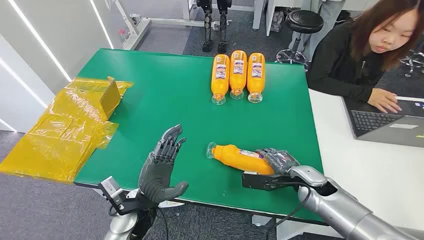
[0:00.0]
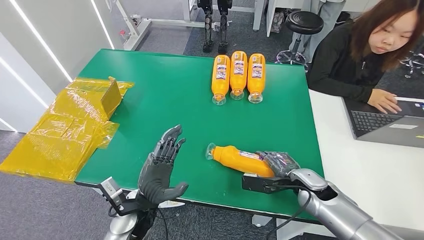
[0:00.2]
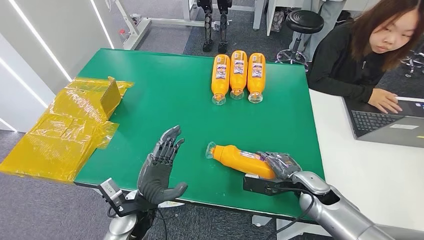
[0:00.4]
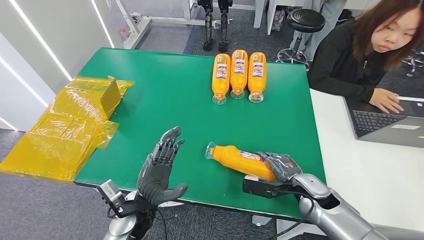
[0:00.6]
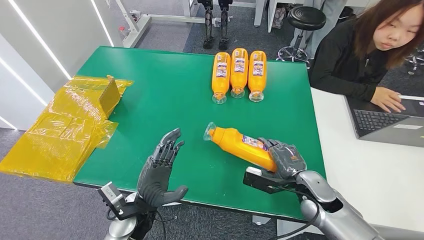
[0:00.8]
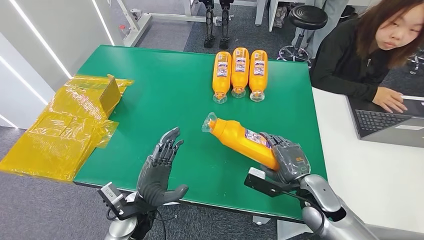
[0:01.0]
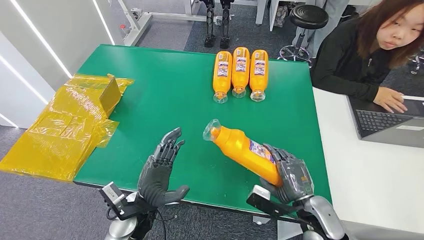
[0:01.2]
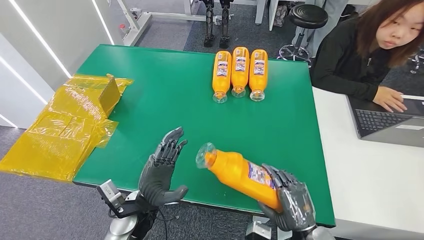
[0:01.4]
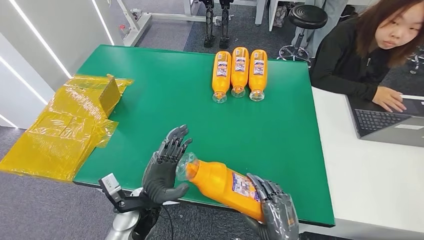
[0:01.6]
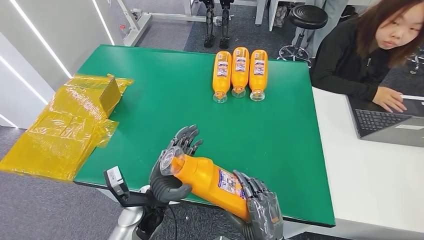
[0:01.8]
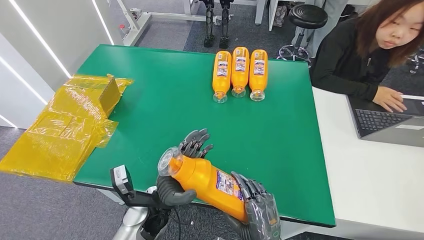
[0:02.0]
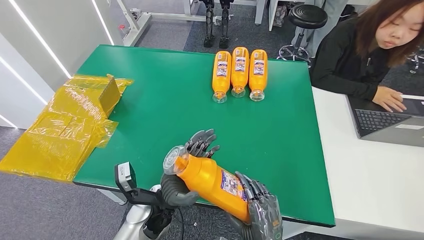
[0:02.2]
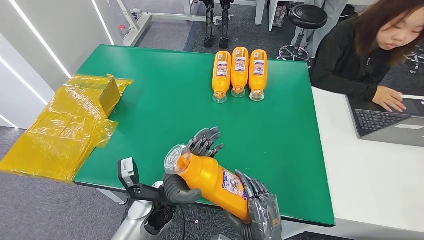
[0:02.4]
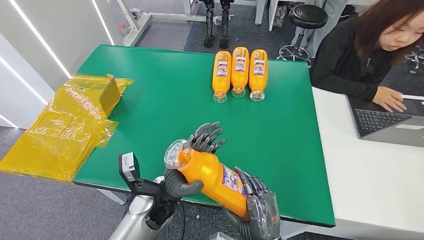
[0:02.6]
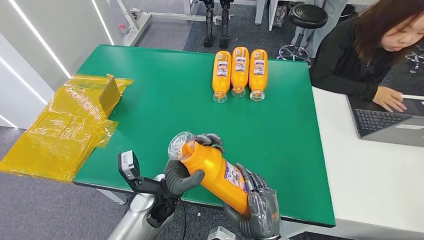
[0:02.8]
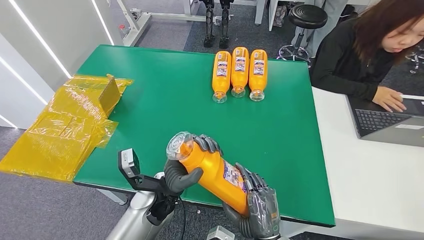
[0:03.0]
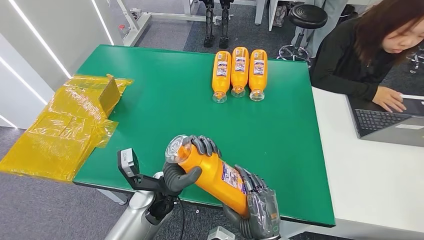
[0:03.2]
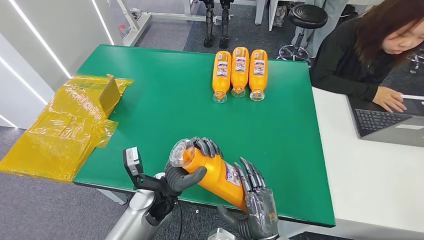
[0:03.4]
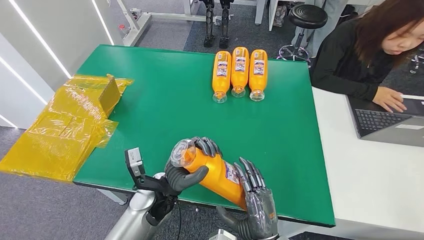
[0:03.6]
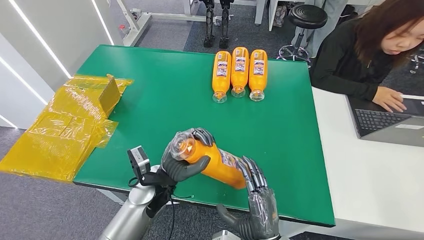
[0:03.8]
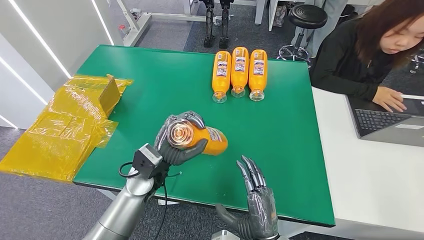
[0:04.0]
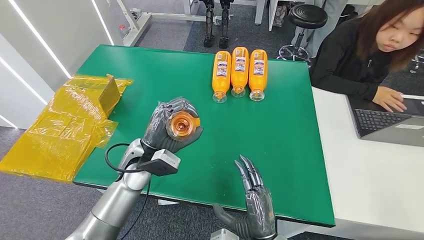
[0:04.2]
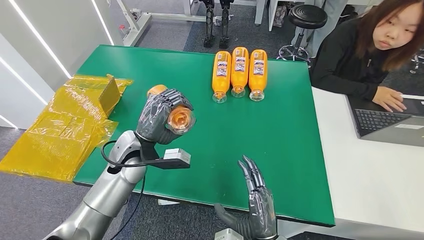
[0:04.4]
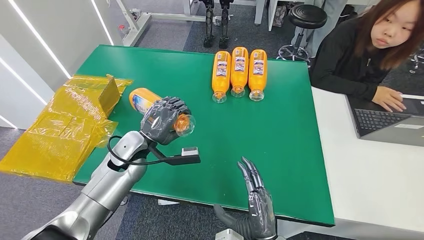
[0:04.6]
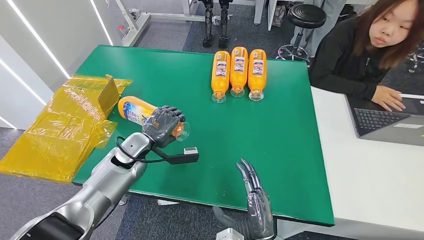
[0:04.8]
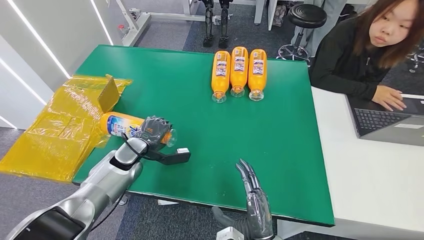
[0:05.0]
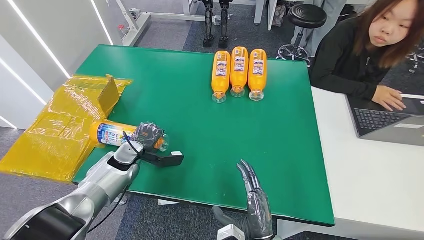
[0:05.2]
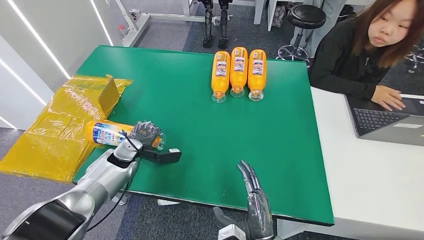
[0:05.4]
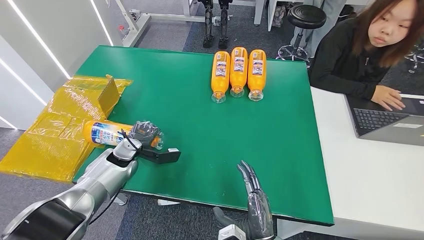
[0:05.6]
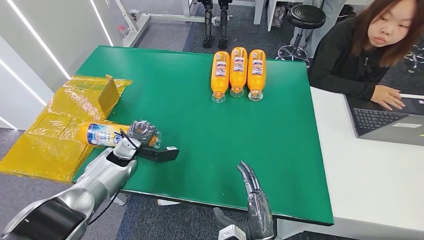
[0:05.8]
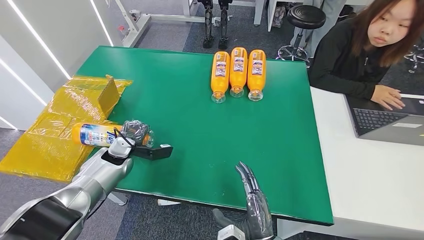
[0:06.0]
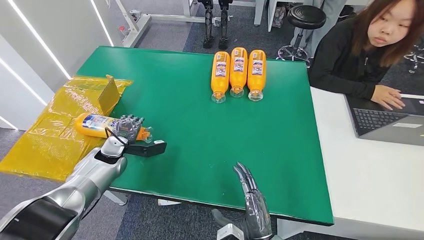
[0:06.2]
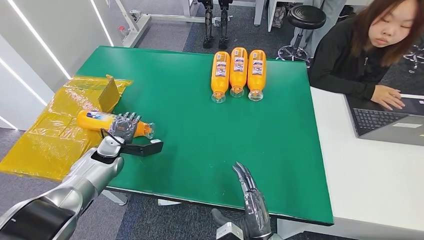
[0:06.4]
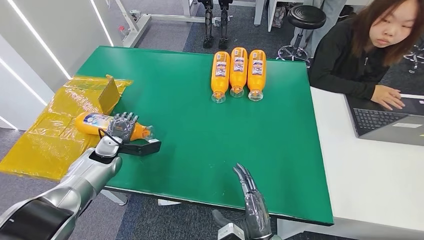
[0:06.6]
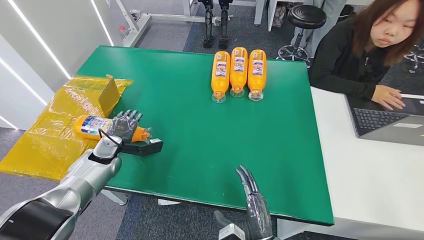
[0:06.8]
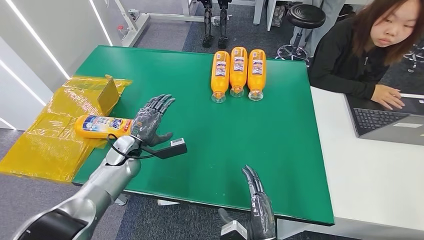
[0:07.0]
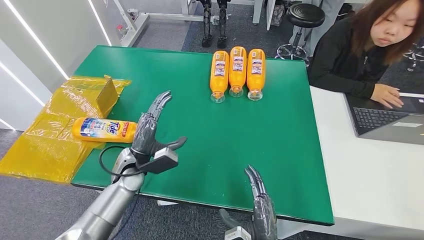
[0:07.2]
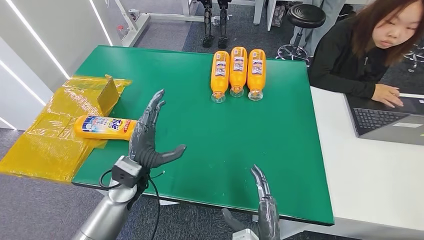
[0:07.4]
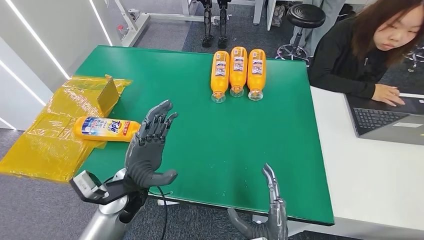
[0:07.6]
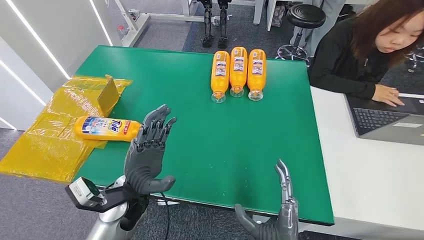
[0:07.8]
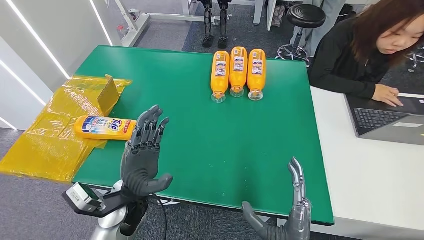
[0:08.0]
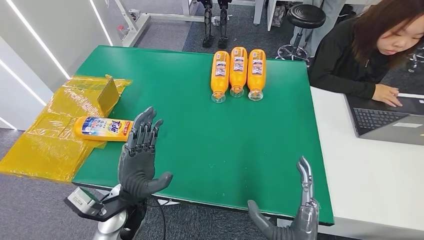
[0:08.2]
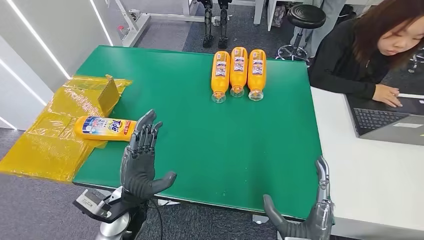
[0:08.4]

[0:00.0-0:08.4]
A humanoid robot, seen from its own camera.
Step, 0:00.0 to 0:02.4: Pick up the bottle from the table.
Step, 0:02.6 to 0:08.2: Turn the bottle to the front side.
0:01.4 to 0:02.8: The left hand heads to the right, covering approximately 5 cm. The right hand is displaced to the left by roughly 10 cm.
0:02.8 to 0:04.2: The left hand is displaced forward and to the left by about 10 cm.
0:04.2 to 0:05.6: The left hand is displaced to the left and downward by about 15 cm.
0:07.0 to 0:08.4: The left hand shifts some 20 cm backward and to the right. Meanwhile the right hand moves upward, about 5 cm.
